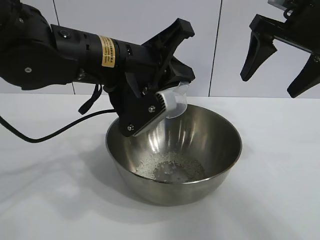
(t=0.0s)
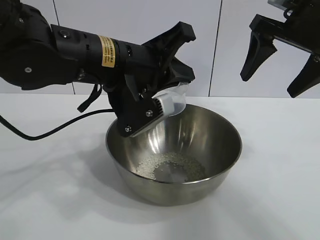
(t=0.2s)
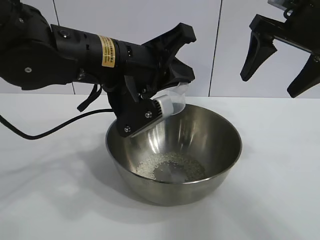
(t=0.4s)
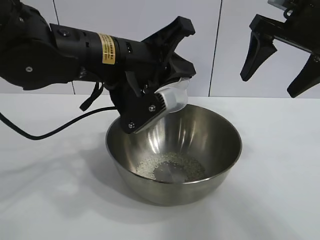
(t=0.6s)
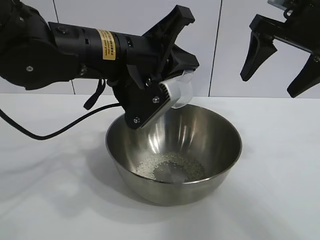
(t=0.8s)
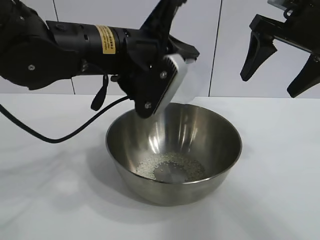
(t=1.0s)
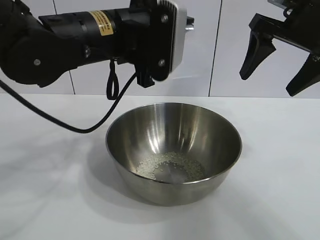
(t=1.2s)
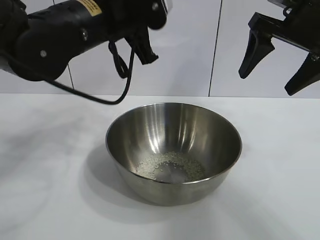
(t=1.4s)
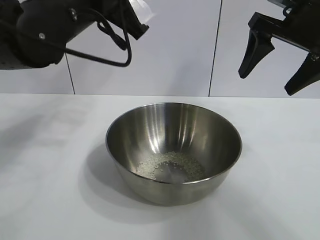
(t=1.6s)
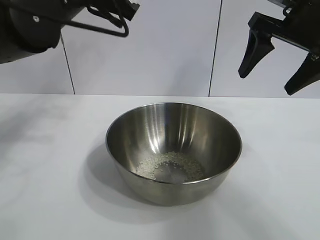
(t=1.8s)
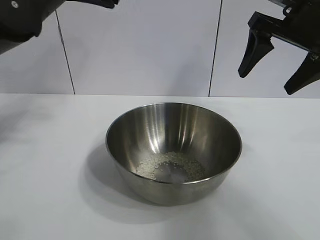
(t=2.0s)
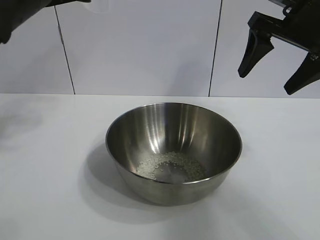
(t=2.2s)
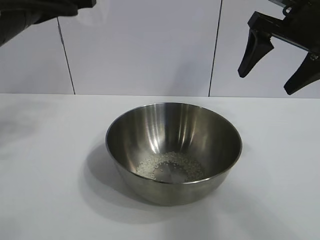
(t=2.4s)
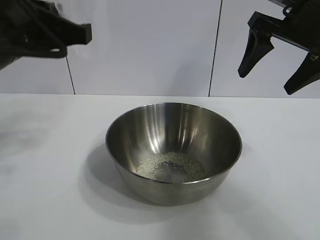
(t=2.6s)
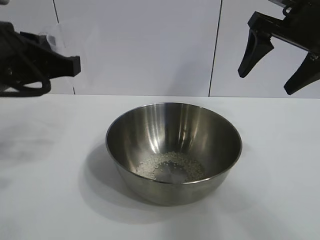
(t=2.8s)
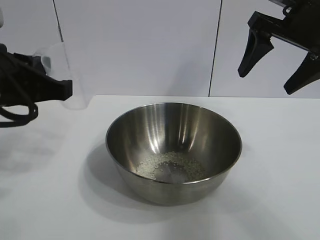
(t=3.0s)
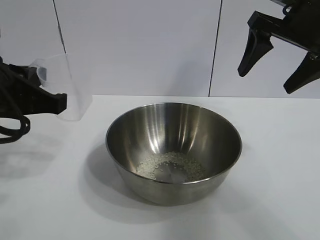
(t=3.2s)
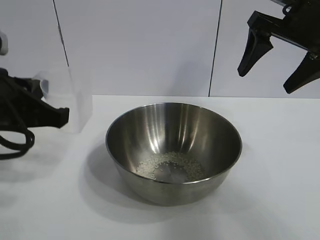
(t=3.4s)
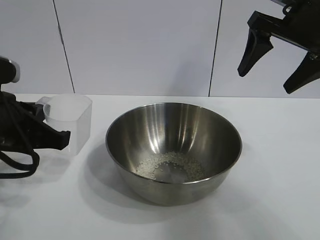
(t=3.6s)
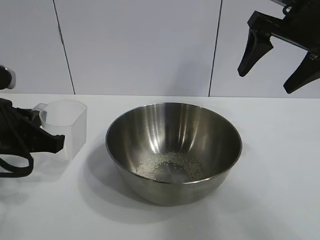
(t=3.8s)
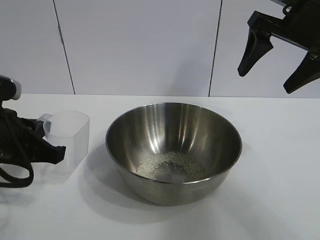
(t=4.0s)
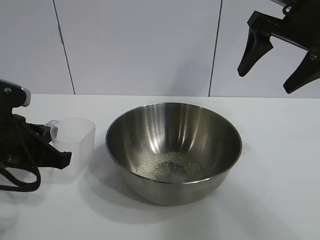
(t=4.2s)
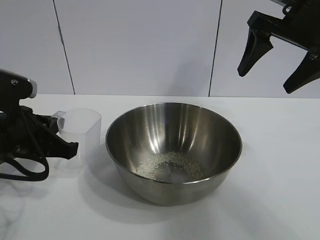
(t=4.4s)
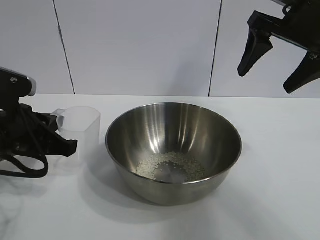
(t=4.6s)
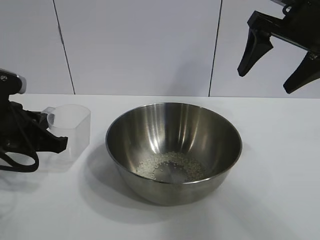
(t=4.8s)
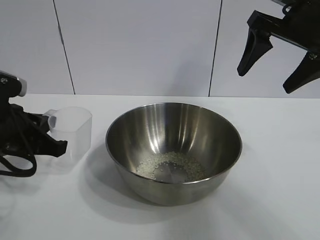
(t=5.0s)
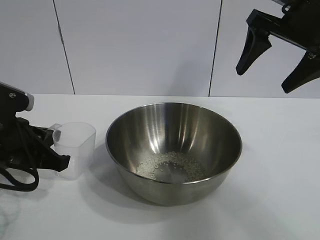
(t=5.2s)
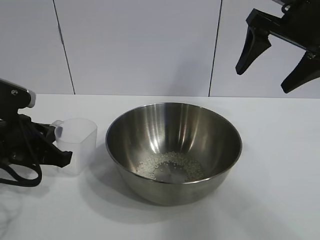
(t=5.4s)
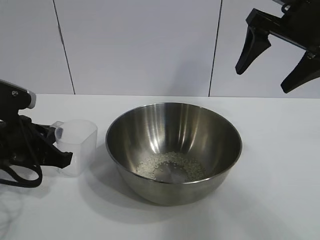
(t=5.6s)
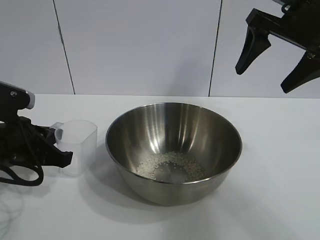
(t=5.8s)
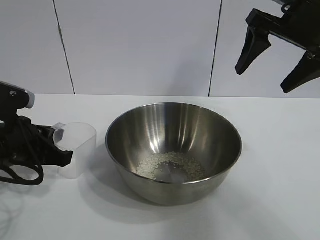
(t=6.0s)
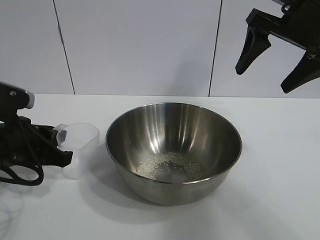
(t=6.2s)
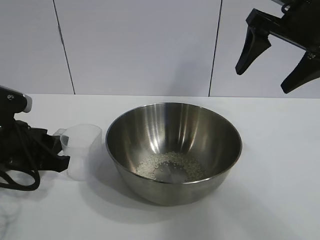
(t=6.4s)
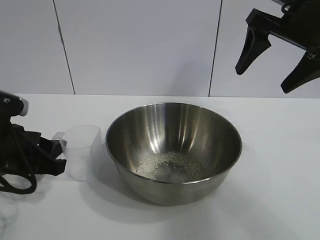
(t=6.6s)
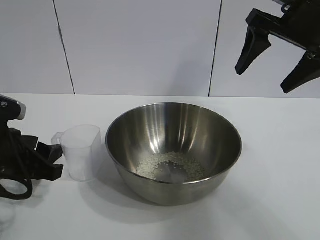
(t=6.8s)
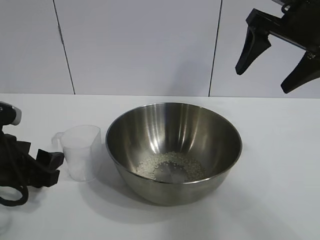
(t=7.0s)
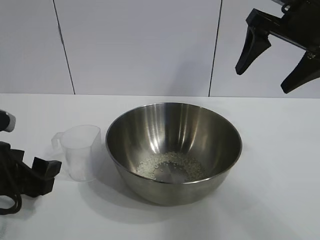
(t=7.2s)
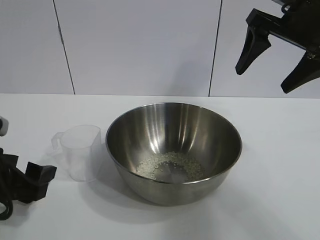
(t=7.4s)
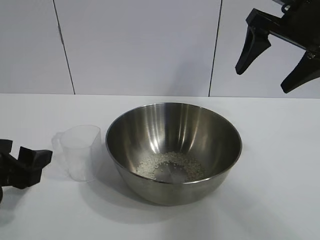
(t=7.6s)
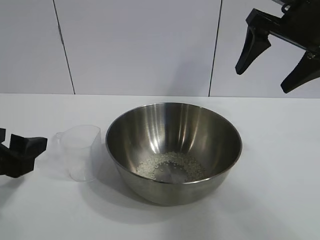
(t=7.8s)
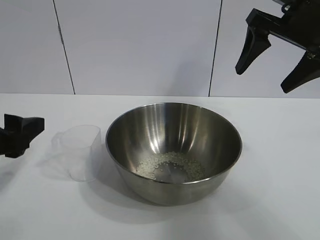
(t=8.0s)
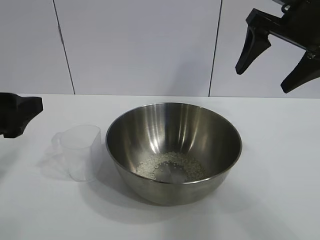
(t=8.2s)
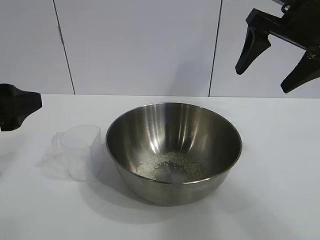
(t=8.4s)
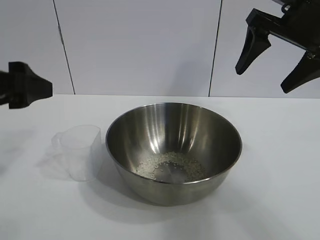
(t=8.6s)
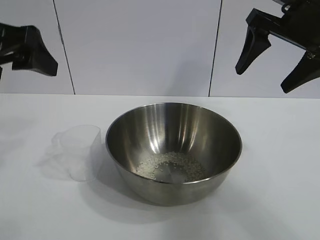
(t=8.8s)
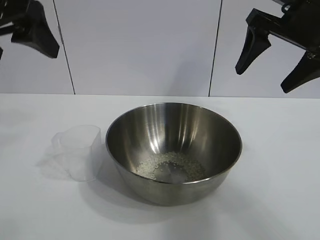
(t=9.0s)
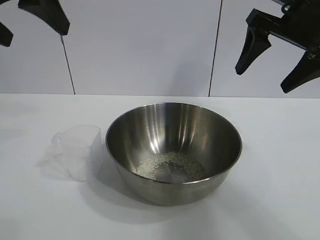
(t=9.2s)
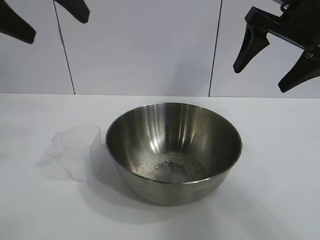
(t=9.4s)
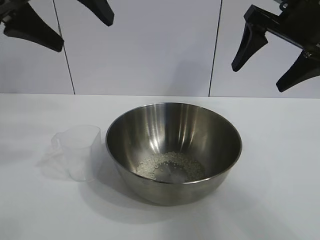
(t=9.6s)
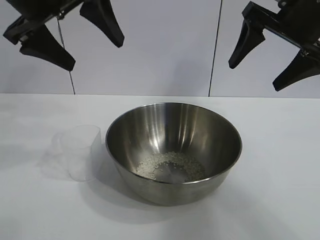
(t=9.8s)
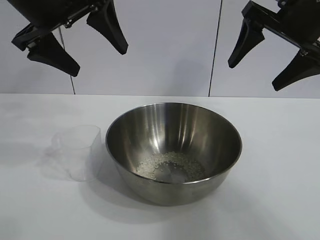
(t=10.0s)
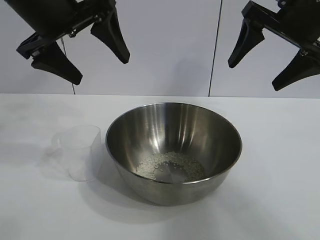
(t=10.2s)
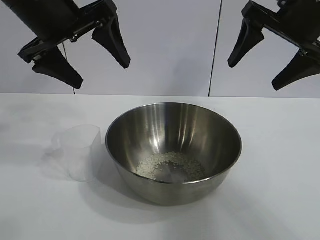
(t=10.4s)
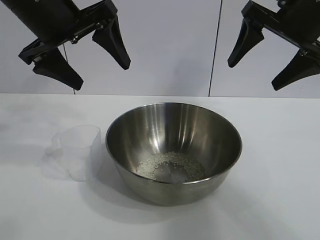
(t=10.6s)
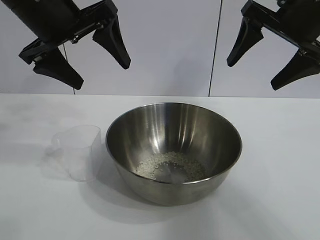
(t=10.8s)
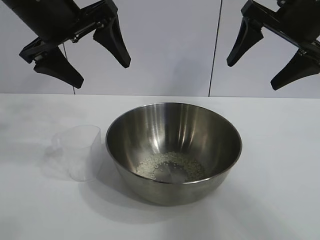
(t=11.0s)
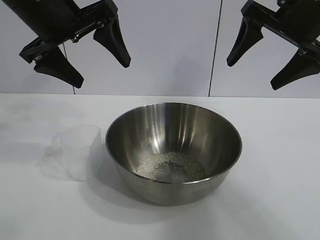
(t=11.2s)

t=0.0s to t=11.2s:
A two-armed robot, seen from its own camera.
Task of the whole recording: the right gripper grasp the rice container and place it in the center of the table, the left gripper grasp the rice scoop and pour the rice into the rice container.
Step, t=0.4s to t=6.6s: Place the cup on the table with the left gripper.

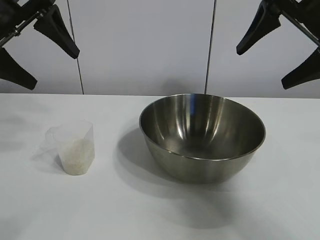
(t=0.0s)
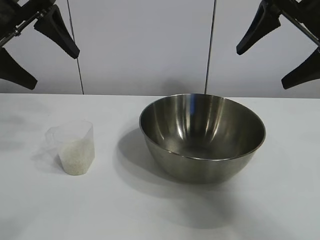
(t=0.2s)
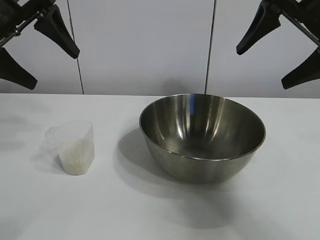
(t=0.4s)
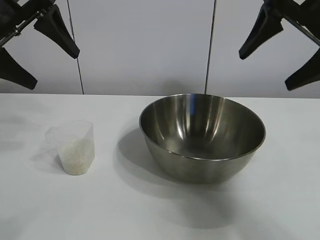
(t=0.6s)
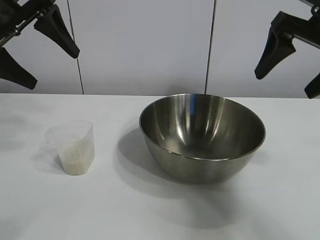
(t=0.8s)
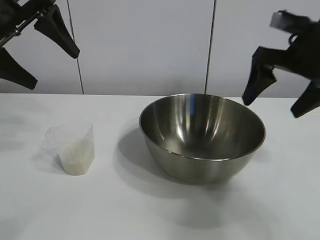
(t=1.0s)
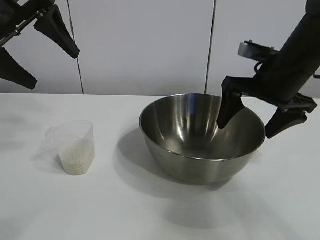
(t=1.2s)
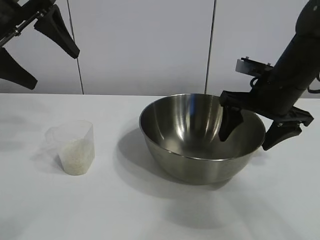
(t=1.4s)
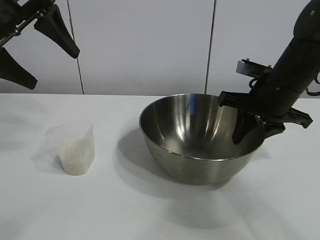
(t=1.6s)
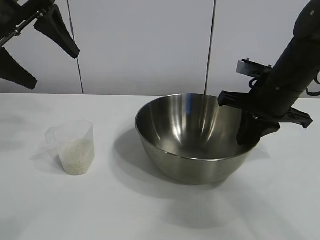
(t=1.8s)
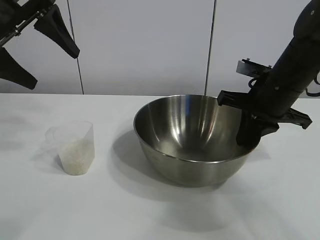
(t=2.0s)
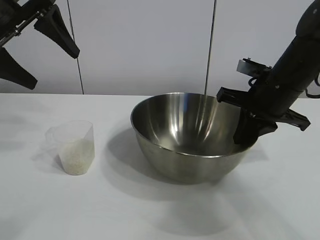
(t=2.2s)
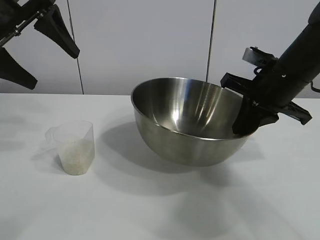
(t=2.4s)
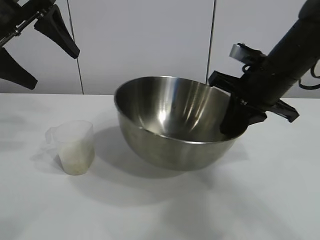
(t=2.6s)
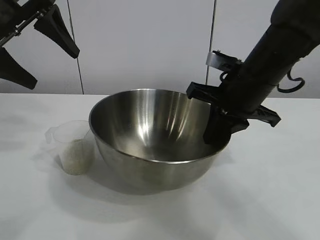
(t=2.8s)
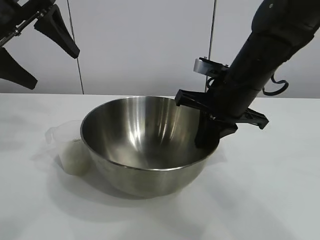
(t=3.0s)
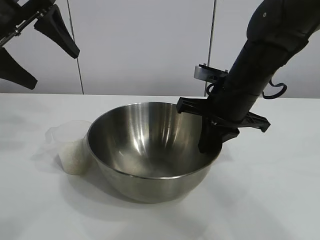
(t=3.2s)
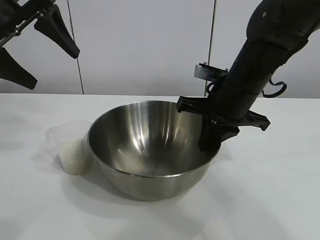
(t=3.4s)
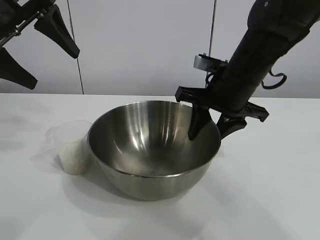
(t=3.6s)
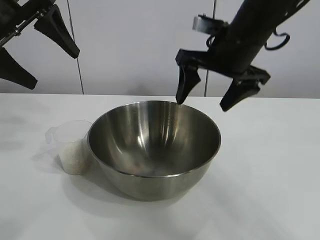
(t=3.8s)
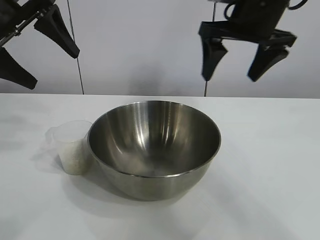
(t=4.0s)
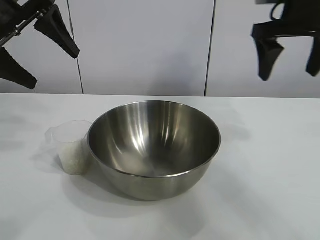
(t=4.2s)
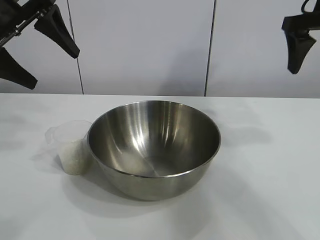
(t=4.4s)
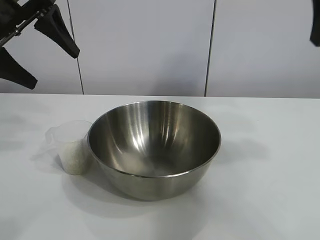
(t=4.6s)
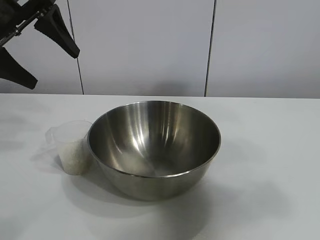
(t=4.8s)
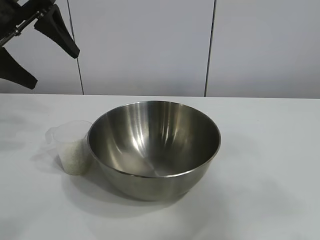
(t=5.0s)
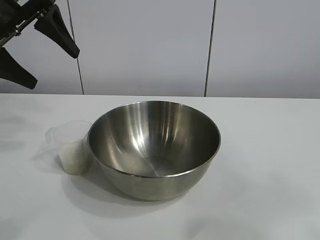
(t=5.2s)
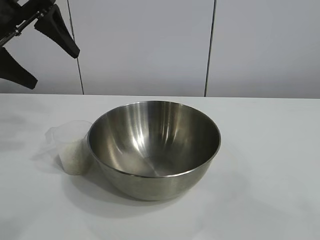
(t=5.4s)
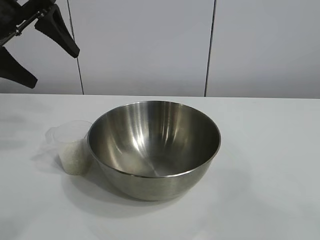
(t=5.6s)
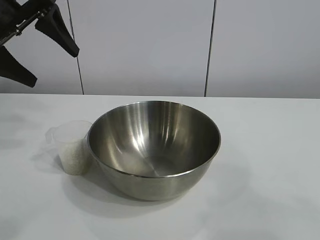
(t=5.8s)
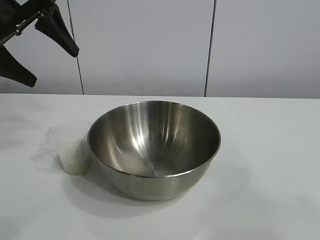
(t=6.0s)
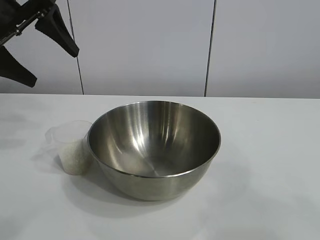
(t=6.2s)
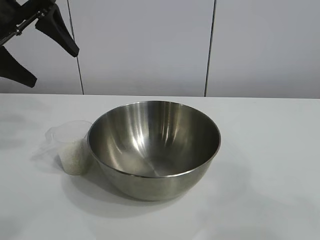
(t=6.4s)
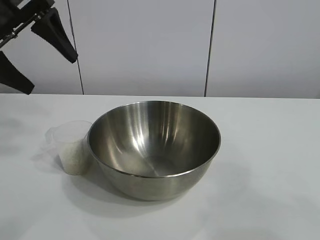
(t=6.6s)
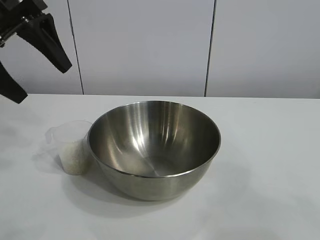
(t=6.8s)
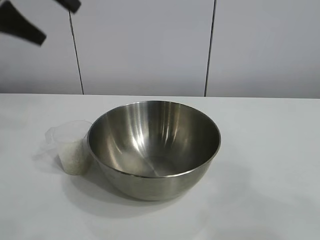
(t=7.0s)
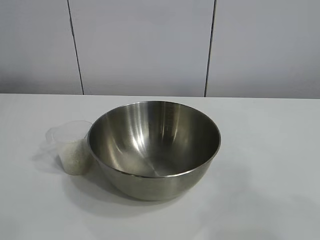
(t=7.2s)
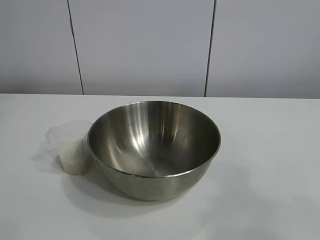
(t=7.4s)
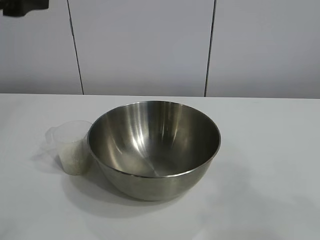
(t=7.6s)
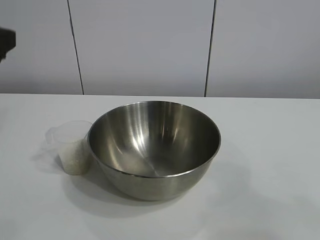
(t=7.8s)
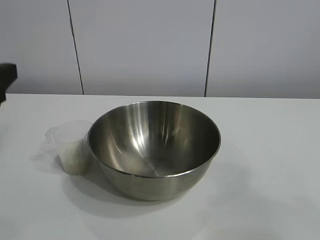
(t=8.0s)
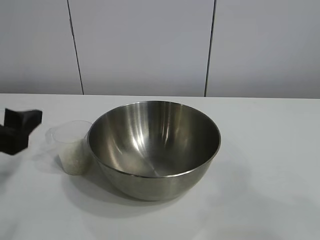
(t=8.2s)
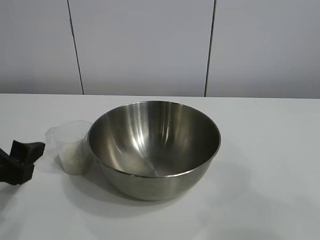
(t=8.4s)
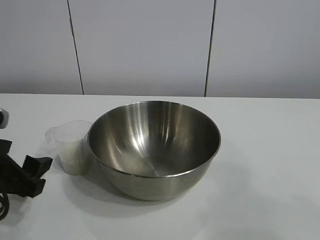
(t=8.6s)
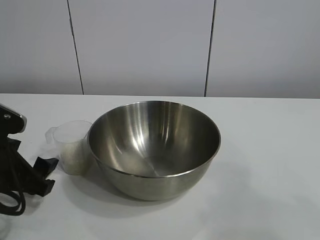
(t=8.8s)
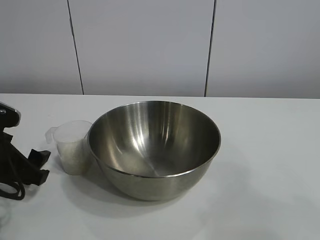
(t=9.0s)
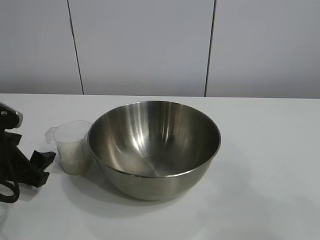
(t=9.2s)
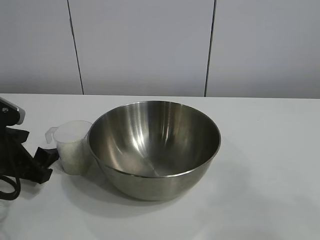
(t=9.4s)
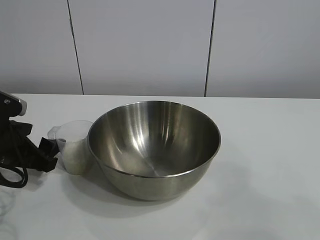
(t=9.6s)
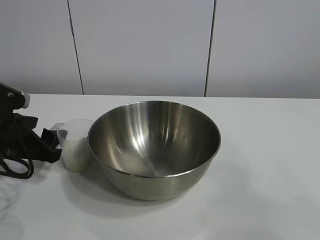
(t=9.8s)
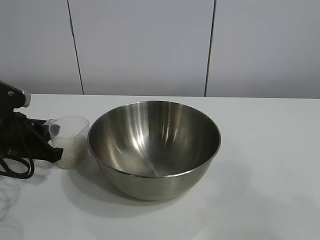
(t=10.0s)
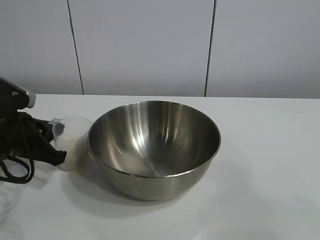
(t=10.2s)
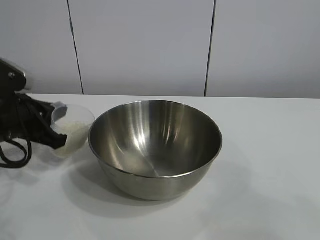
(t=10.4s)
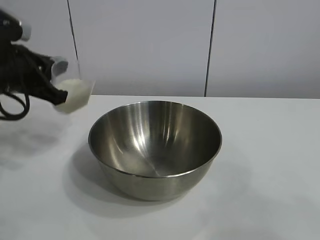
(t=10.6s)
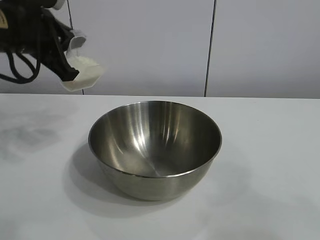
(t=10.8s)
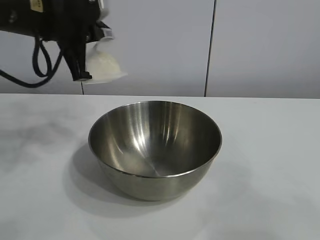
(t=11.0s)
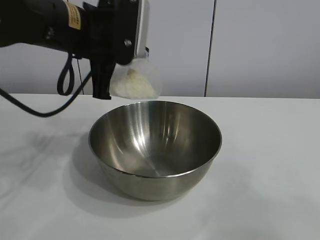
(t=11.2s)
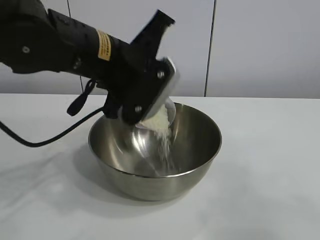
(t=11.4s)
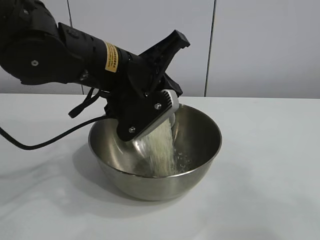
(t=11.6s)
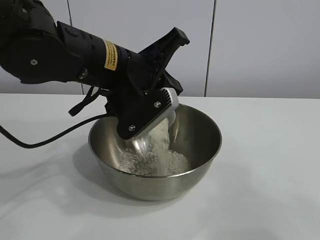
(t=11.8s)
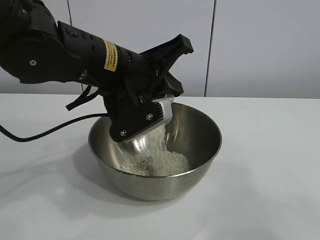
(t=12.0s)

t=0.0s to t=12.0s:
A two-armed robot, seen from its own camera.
Task of the whole recording: the right gripper grasp the rice container and place it in the center of the table, the left gripper grasp the rice scoop and pour the rice into the rice container.
Step, t=0.6s to t=3.4s: Move the bowl in the center of view with right gripper.
Step, t=3.6s to t=10.0s: Grasp the cup with rice in it with left gripper.
